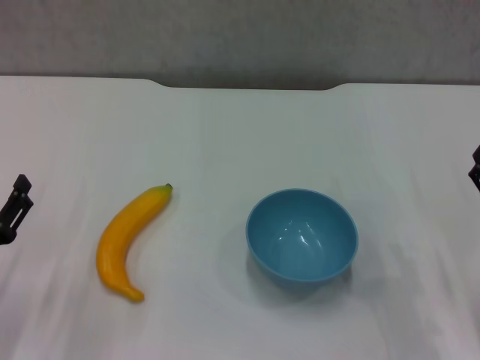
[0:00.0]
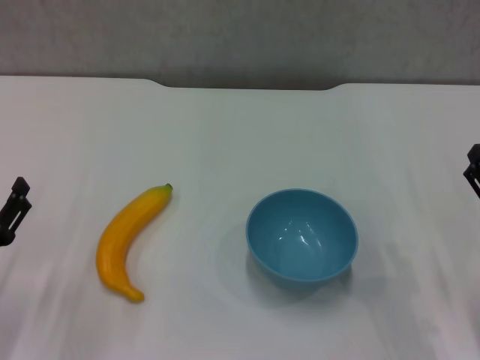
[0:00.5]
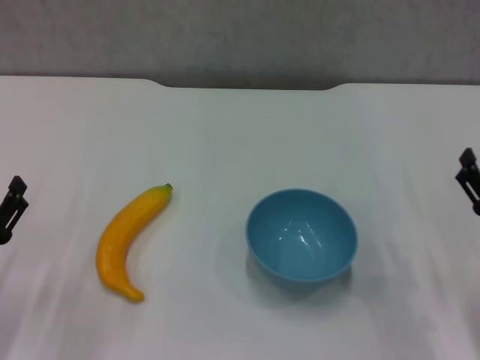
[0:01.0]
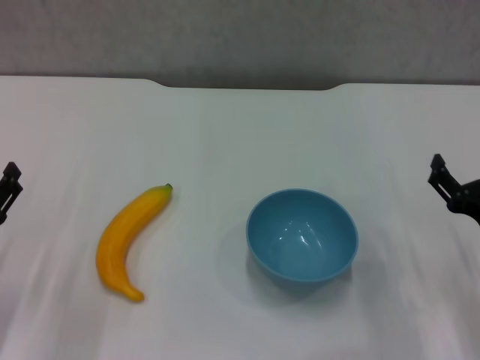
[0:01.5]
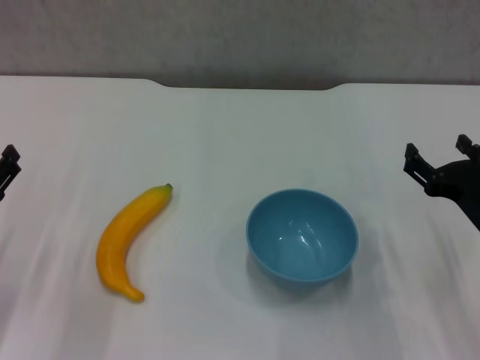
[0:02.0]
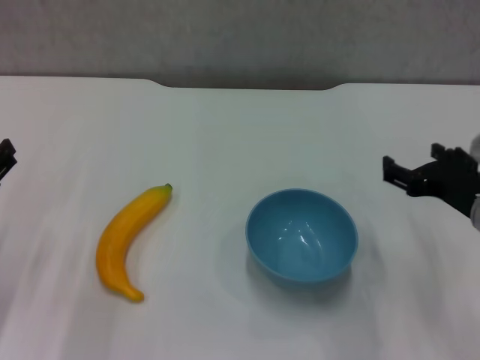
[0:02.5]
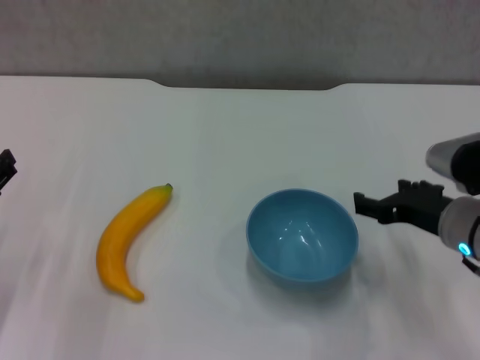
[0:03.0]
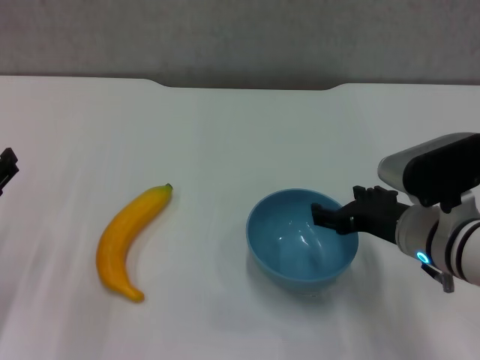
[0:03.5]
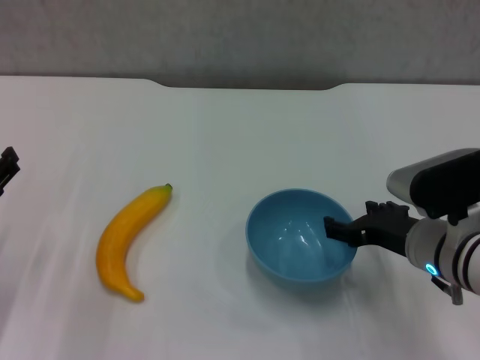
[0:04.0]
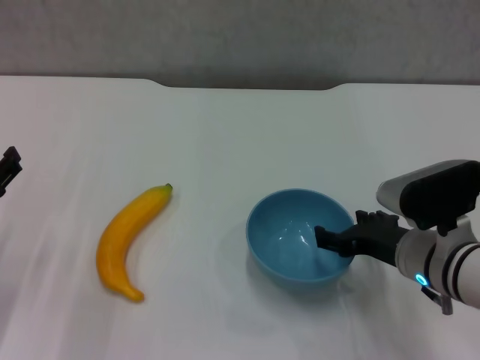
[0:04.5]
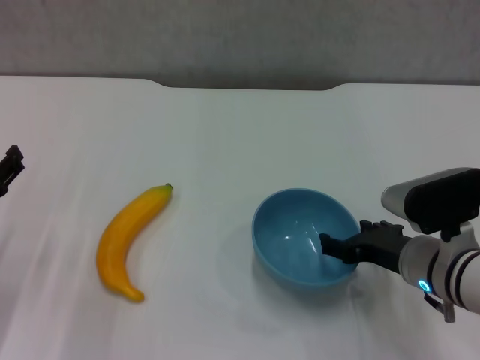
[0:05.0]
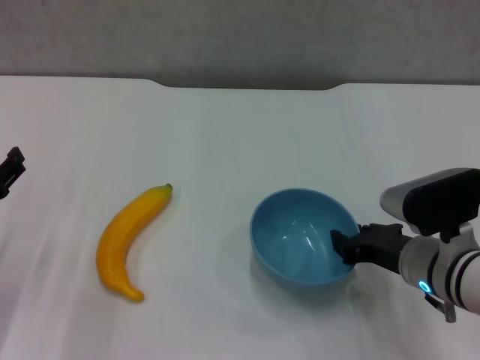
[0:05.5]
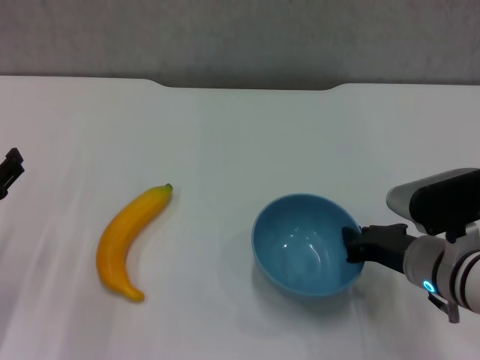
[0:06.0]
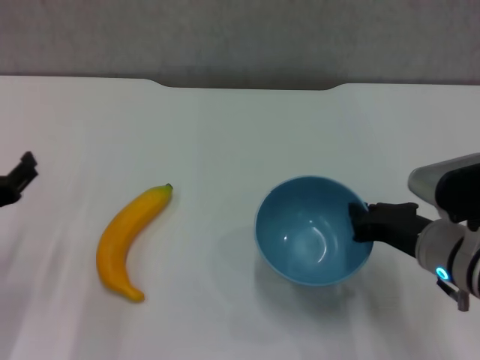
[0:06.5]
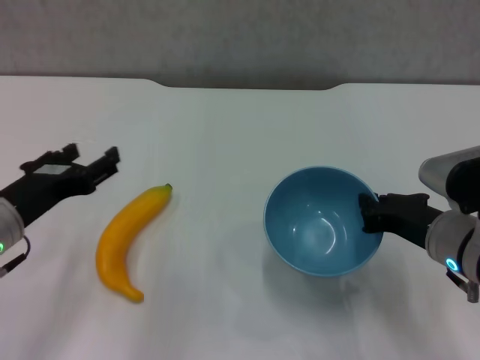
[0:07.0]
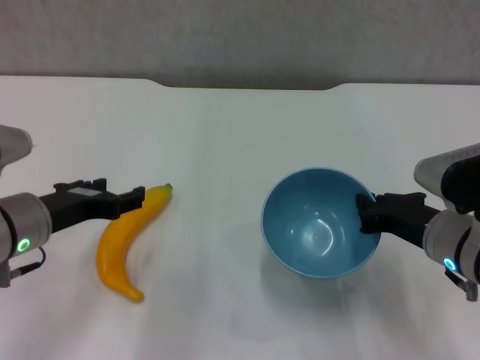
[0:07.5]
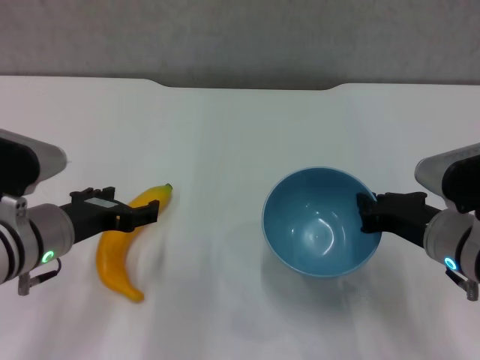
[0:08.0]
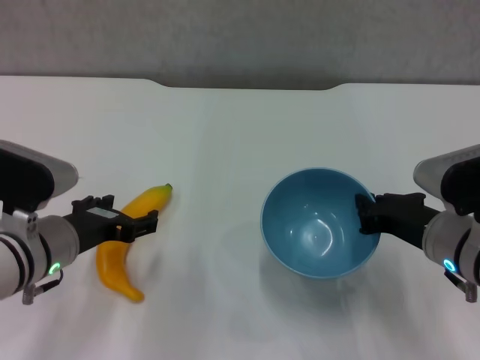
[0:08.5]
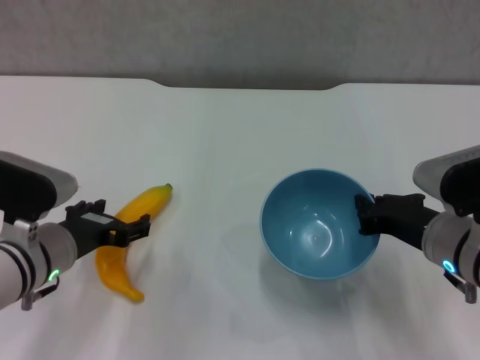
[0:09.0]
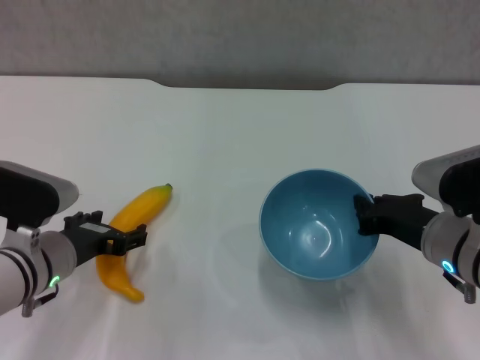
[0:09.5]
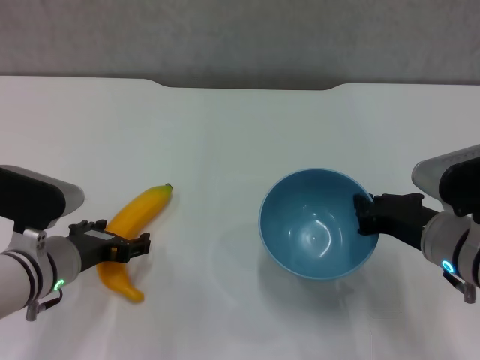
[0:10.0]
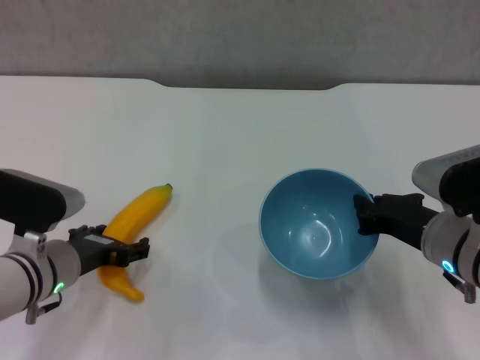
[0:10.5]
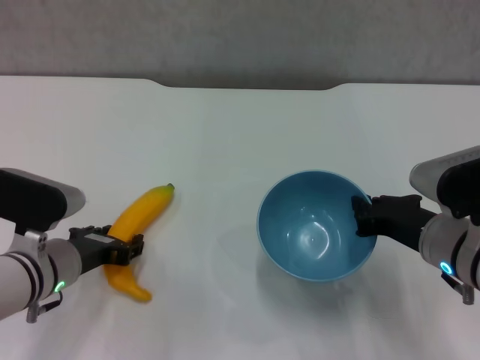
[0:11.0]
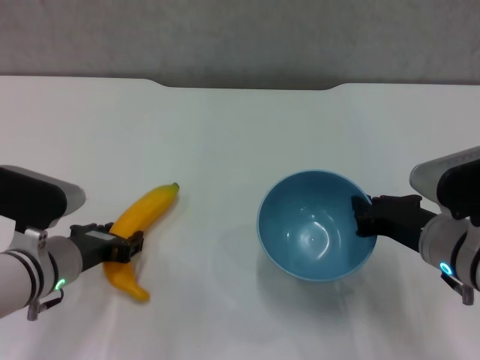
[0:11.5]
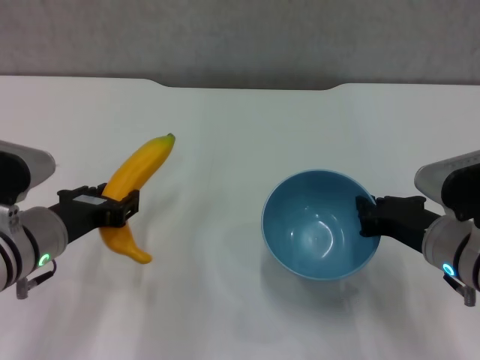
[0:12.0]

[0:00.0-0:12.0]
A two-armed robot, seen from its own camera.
Step, 0:00.0 to 0:05.5: Grasp the blue bowl with right gripper.
Step, 0:06.0 to 0:06.5: Lift the blue bowl with right gripper.
Step, 0:07.0 to 0:11.0: Grasp the banana with left gripper.
0:00.0 to 0:02.0: The left gripper moves about 5 cm. Meanwhile the right gripper ends up roughly 5 cm from where it was.
0:02.0 to 0:04.0: The right gripper shifts about 5 cm to the left.
0:04.0 to 0:06.0: The right gripper closes up.
0:06.0 to 0:08.0: The left gripper shifts about 10 cm to the right.
0:08.0 to 0:10.0: The left gripper travels downward by approximately 5 cm.
0:10.0 to 0:12.0: The left gripper closes.

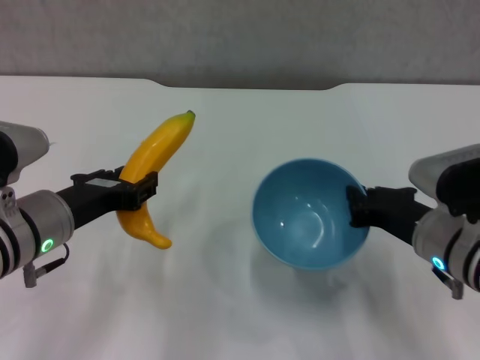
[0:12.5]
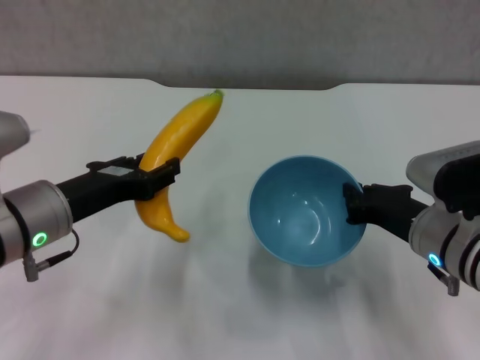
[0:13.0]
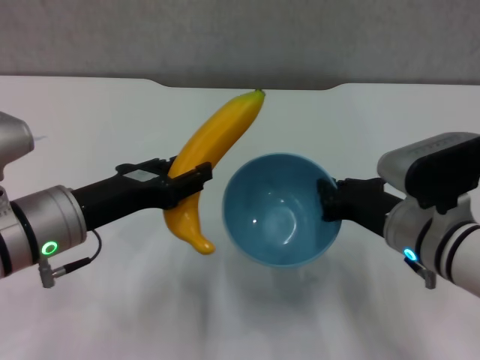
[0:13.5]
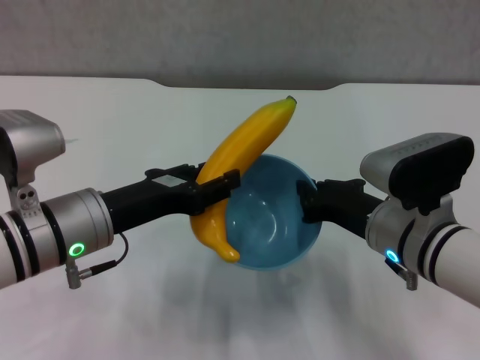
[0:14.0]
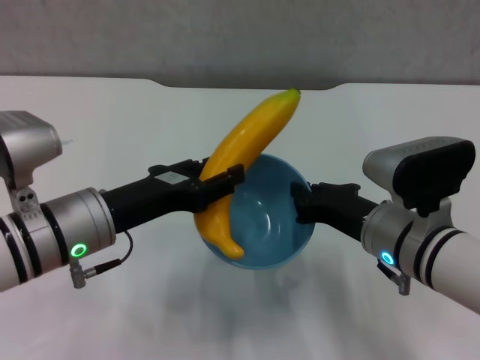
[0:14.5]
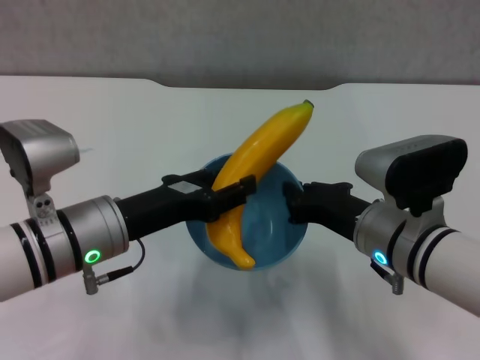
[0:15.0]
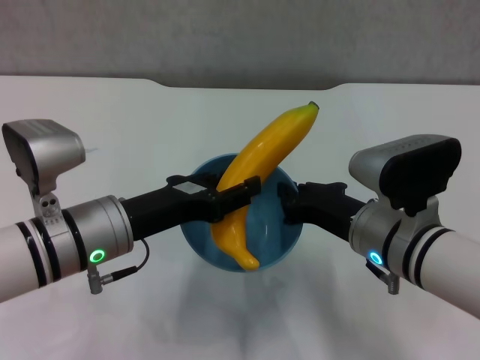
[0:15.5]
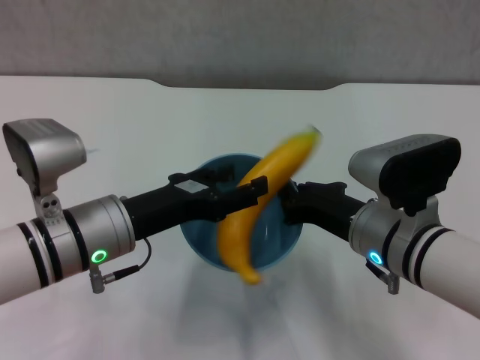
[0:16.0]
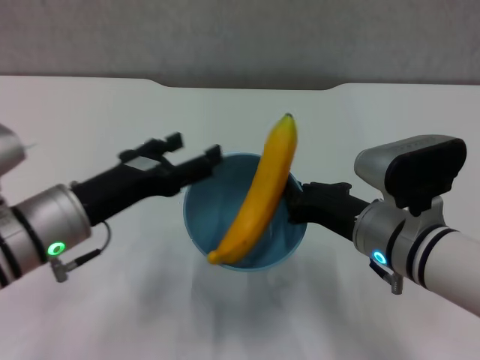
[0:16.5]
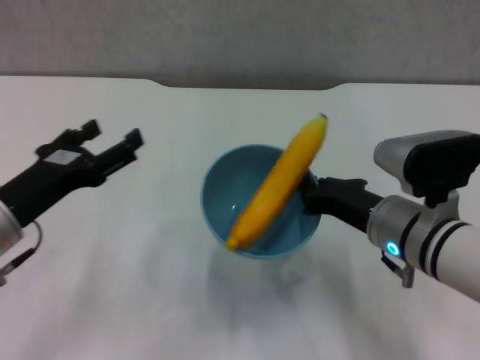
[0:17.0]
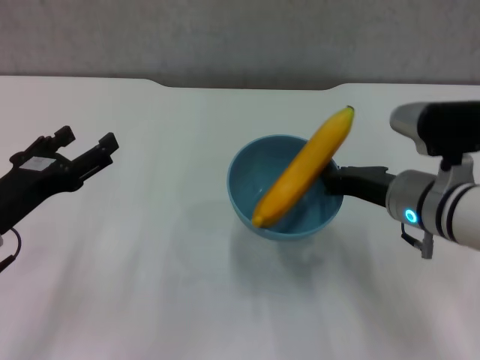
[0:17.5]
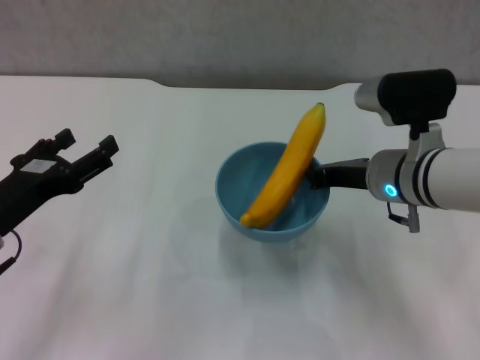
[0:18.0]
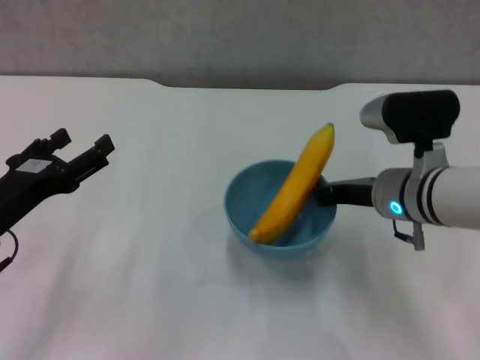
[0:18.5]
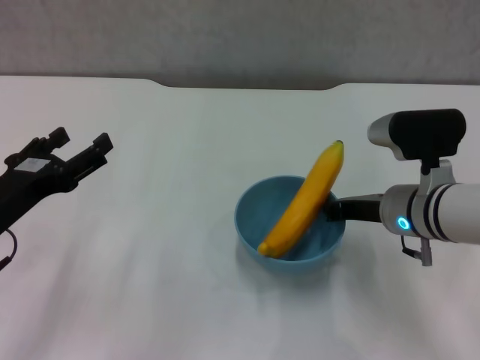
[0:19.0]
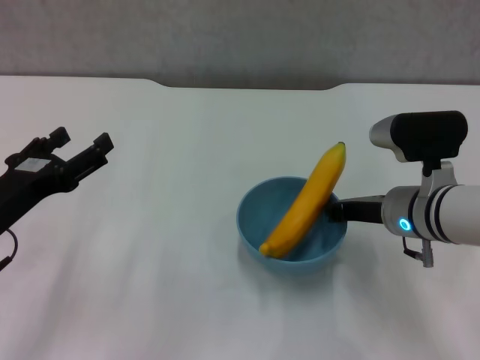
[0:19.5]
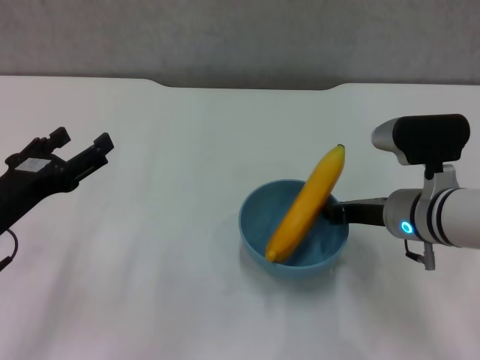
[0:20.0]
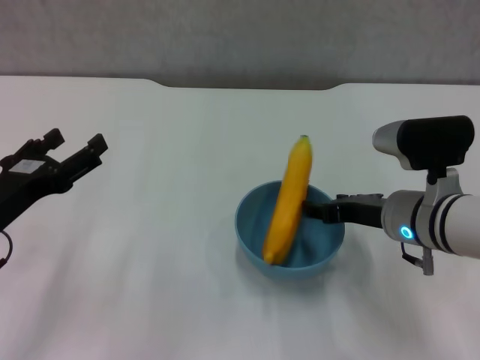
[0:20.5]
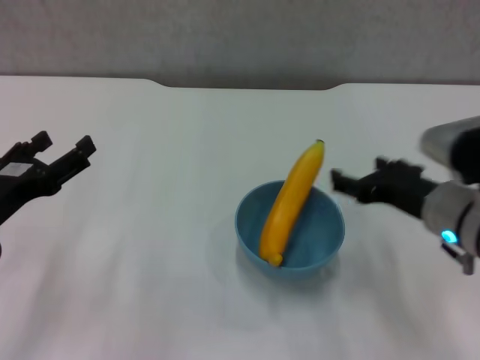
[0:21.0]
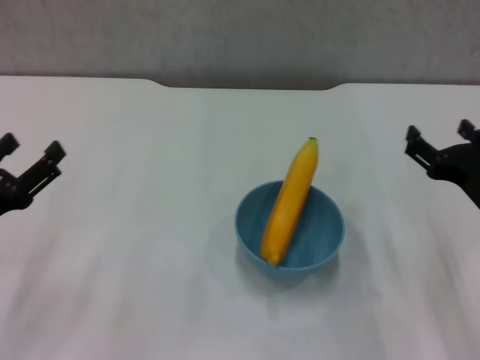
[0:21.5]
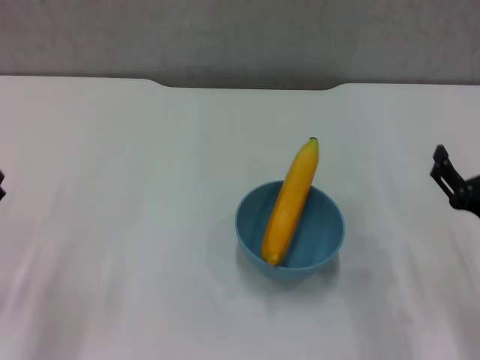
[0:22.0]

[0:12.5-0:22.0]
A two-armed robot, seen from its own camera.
Step, 0:12.5 to 0:15.5: Place the banana in the blue bowl with left gripper.
Step, 0:16.0 to 0:20.0: Place the bowl on the table with right gripper.
0:14.5 to 0:16.5: The left gripper opens up.
0:16.5 to 0:18.0: The left gripper travels to the left by some 5 cm; the right gripper shifts approximately 5 cm forward.
0:20.0 to 0:22.0: The right gripper travels backward and to the right by roughly 15 cm, and opens up, while the left gripper goes some 10 cm downward and to the left.

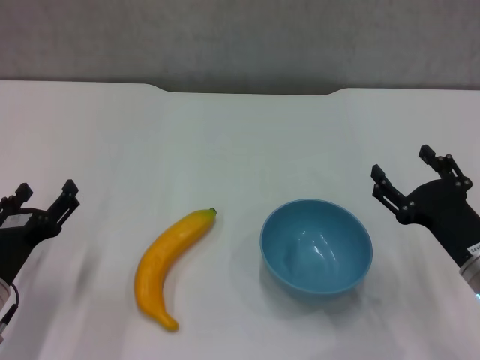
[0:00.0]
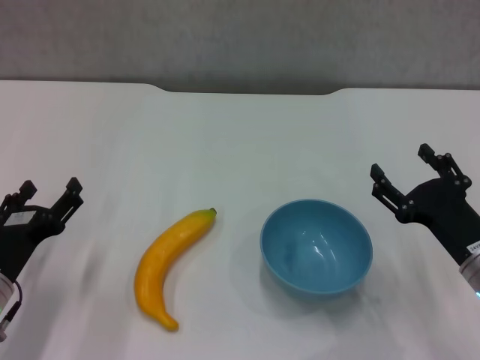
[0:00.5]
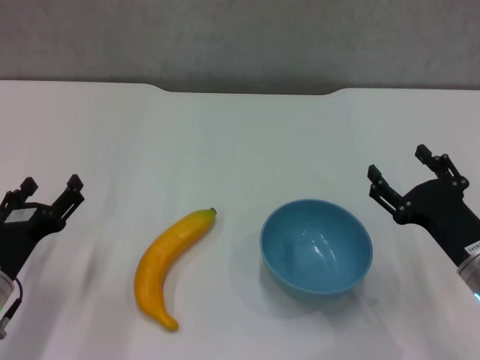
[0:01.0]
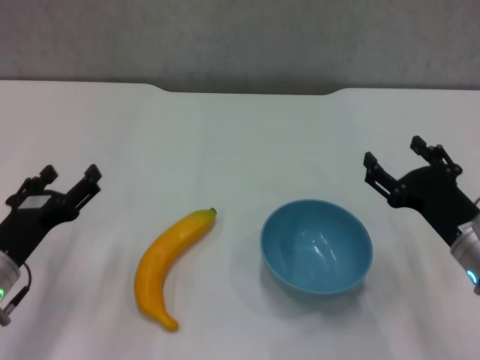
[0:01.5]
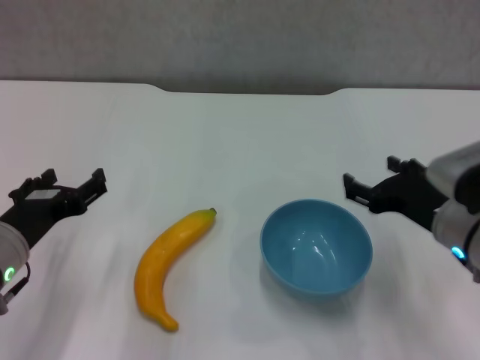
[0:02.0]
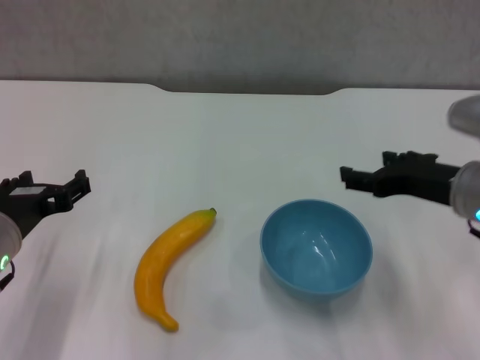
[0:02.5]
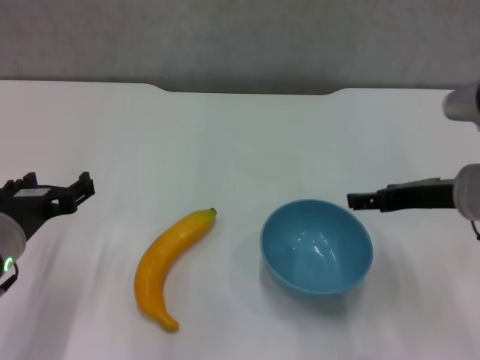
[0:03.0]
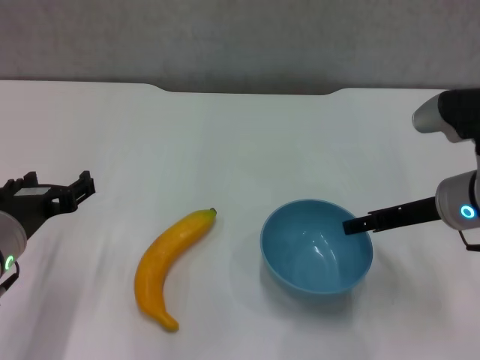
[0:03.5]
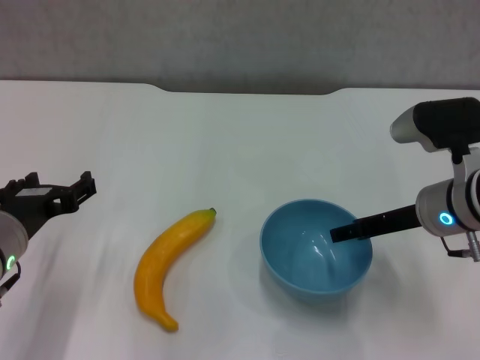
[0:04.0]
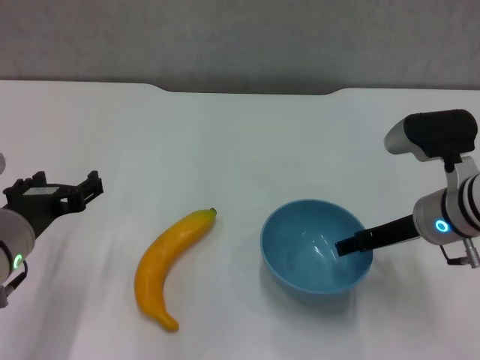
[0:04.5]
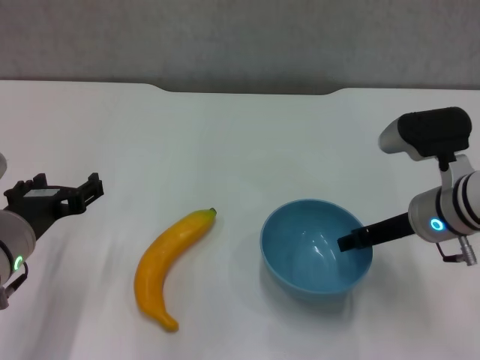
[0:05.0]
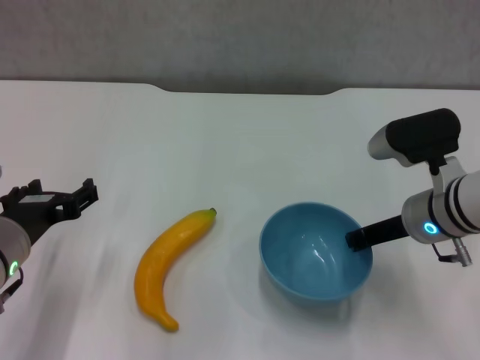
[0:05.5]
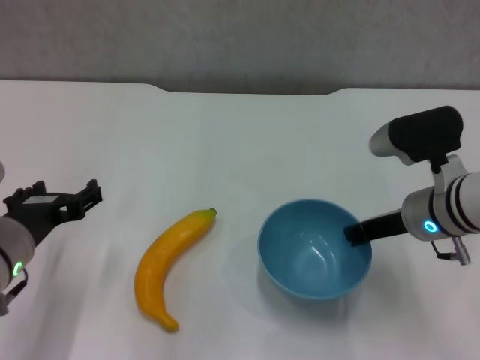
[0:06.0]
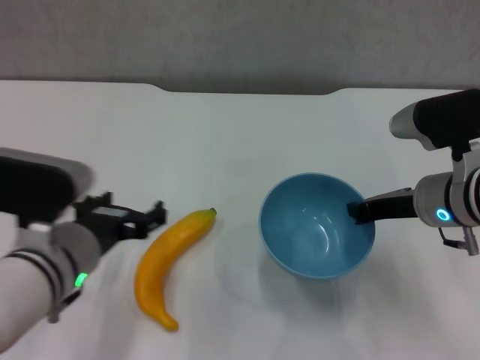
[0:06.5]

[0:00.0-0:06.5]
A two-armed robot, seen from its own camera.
Step, 0:00.0 to 0:05.5: Grasp the blue bowl with right gripper.
0:00.0 to 0:02.0: Both grippers travel together upward, roughly 5 cm.
0:02.0 to 0:04.5: The right gripper heads forward, covering some 5 cm.
0:04.5 to 0:06.5: The left gripper heads to the right, covering roughly 5 cm, while the right gripper closes.
